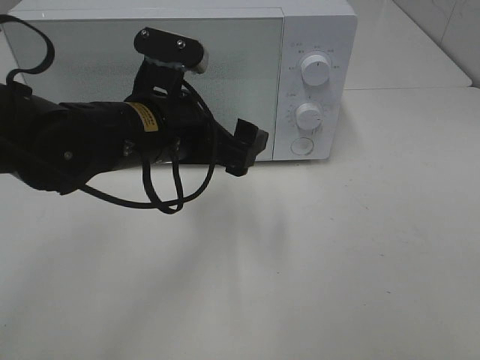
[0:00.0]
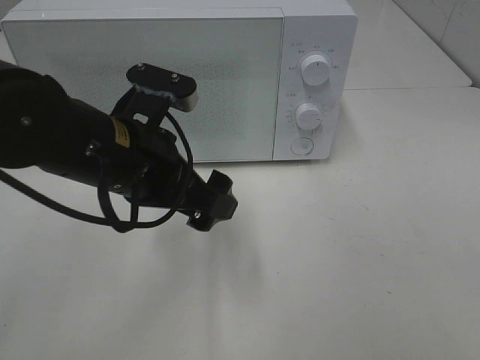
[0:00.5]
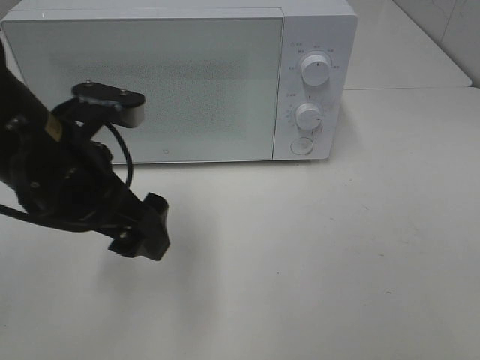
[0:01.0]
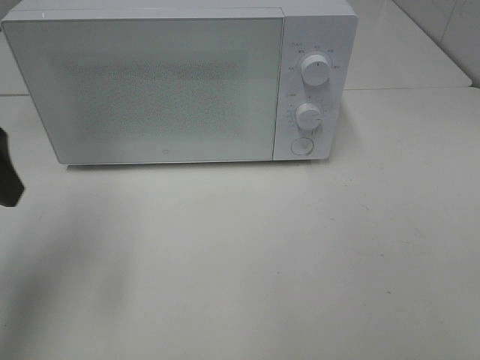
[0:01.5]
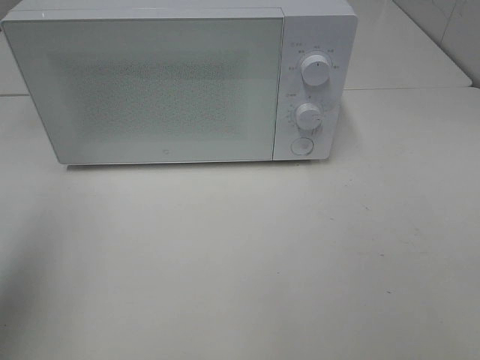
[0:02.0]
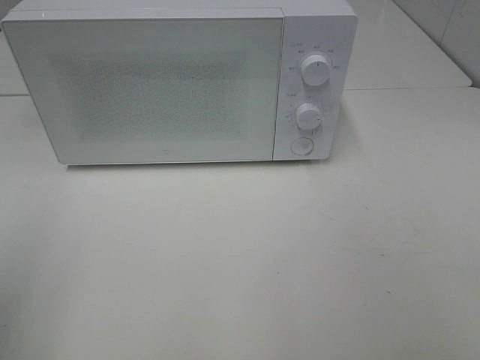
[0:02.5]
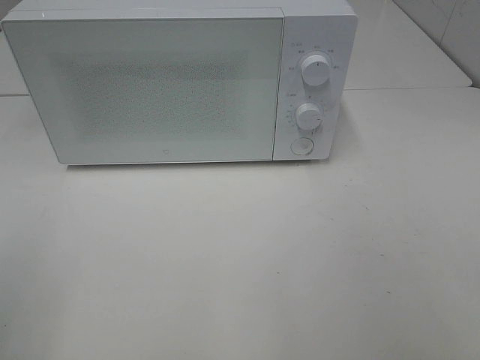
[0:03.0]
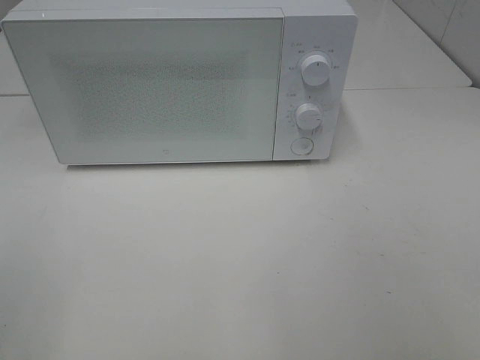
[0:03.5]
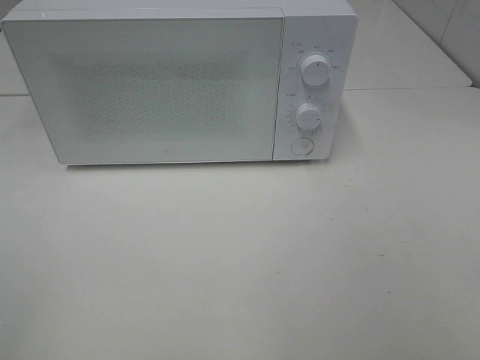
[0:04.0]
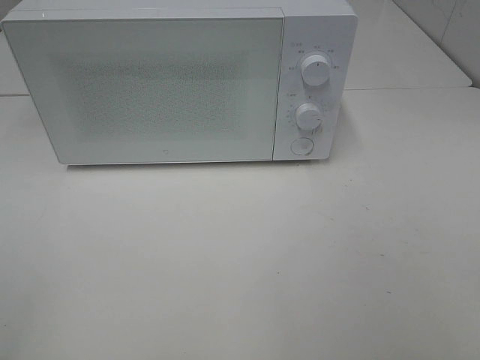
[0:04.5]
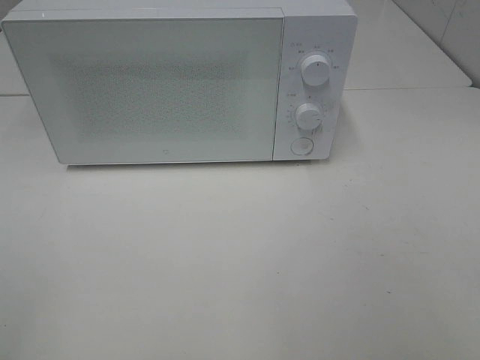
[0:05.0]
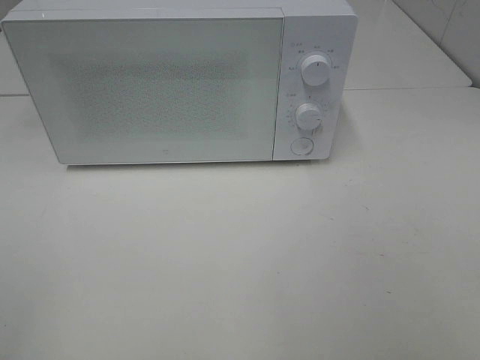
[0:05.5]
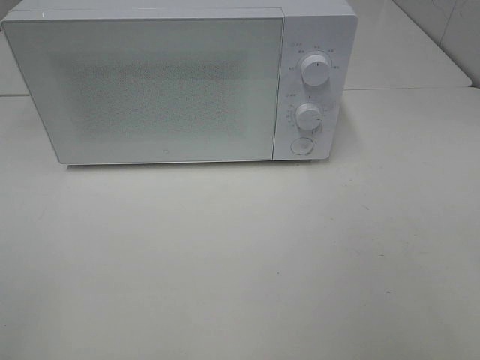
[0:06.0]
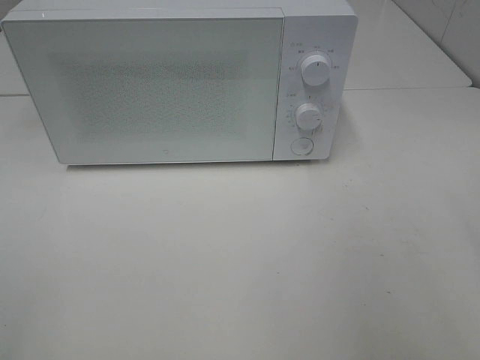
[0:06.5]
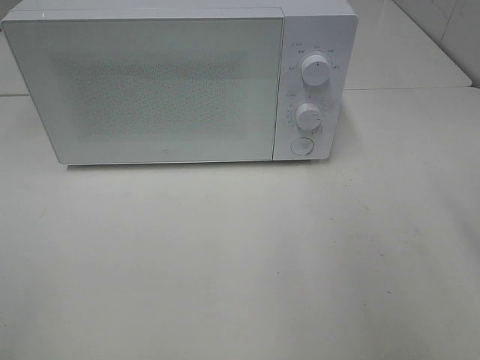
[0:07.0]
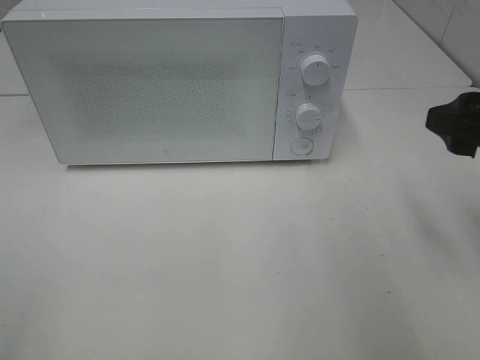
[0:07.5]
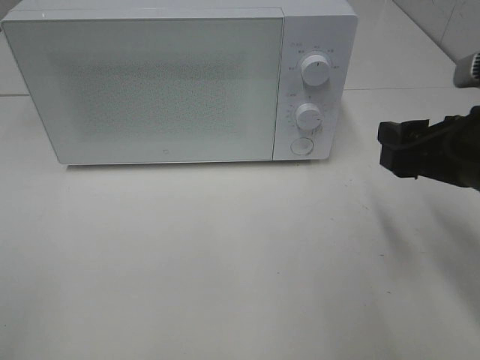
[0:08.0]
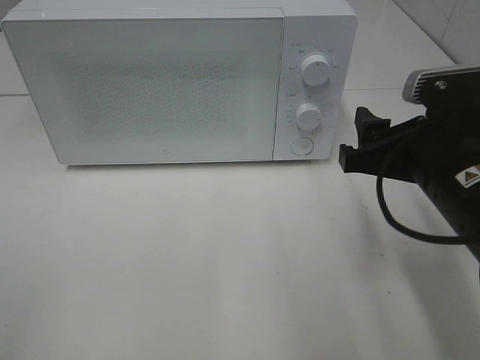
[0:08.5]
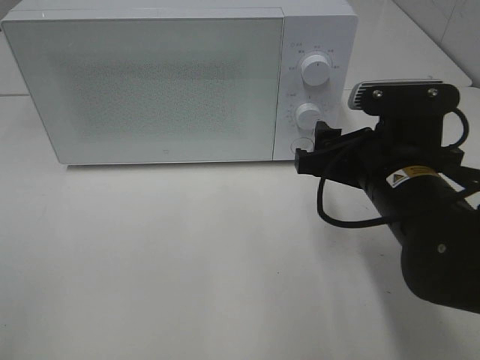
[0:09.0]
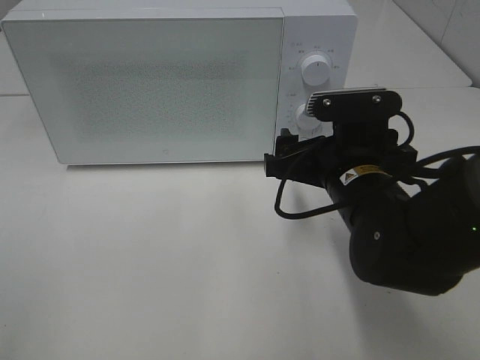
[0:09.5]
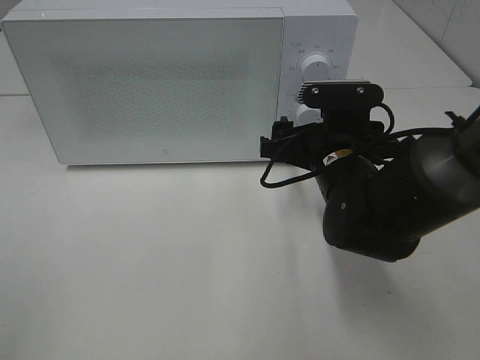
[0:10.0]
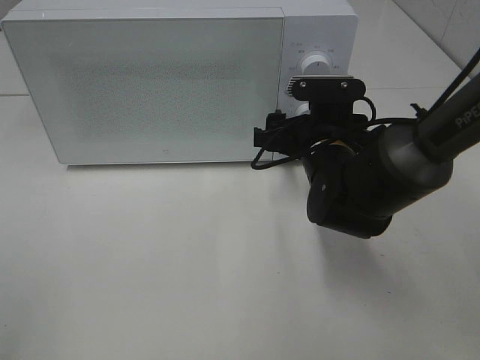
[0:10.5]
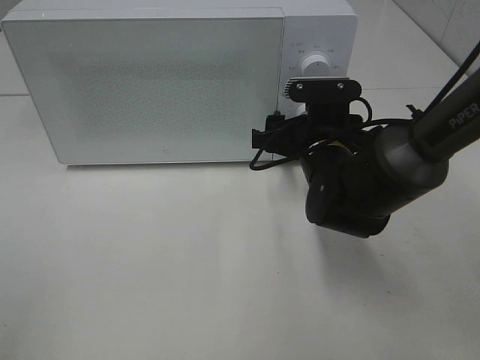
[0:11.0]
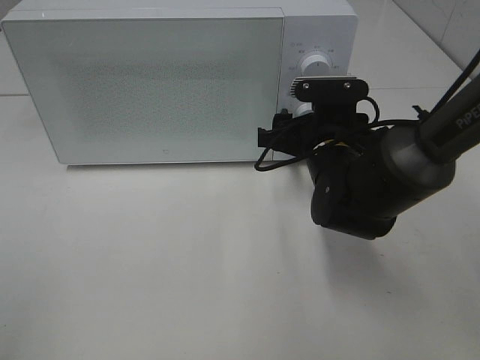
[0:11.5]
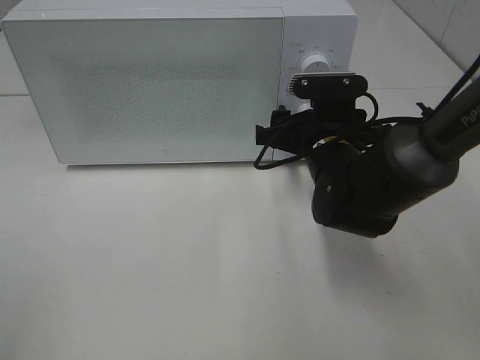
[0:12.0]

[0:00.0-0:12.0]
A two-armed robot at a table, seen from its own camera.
Task of the whole recording: Heat Sandwich.
0:00.0 to 0:02.0: The left gripper moves to the left, upward and backward, some 30 cm.
0:02.0 to 0:04.0: The left gripper shifts about 15 cm backward.
0:06.0 to 0:08.0: The right gripper is displaced forward and downward by about 20 cm.
0:08.0 to 0:10.0: The right gripper moves to the left, forward and downward, about 15 cm.
0:10.0 to 0:12.0: The grippers make only small movements.

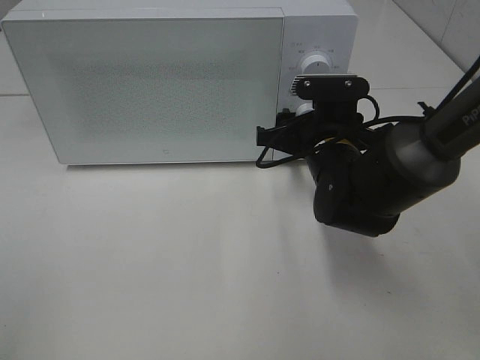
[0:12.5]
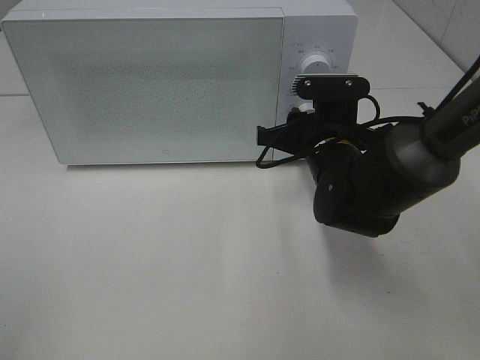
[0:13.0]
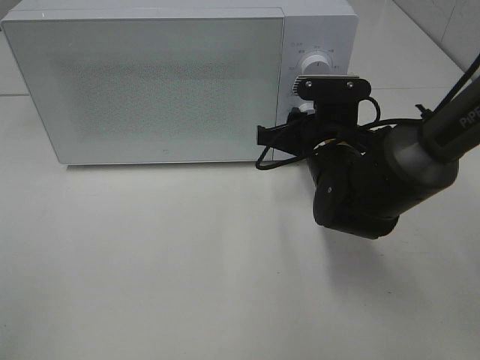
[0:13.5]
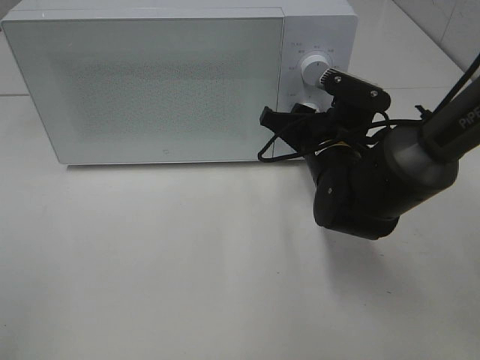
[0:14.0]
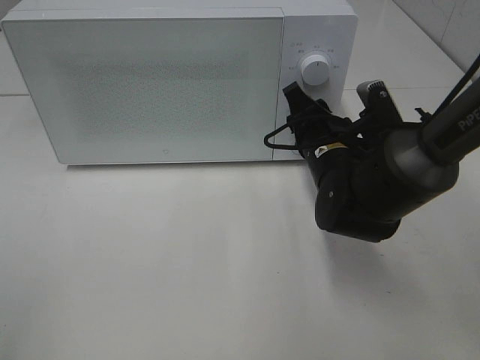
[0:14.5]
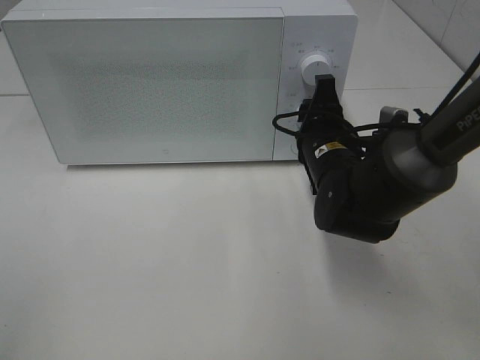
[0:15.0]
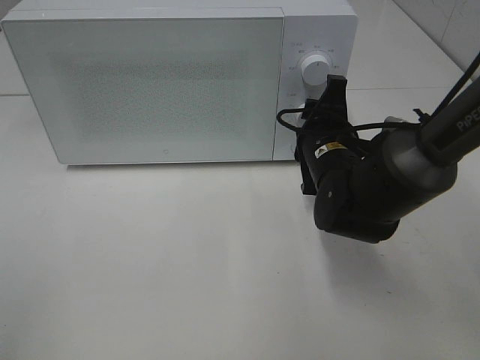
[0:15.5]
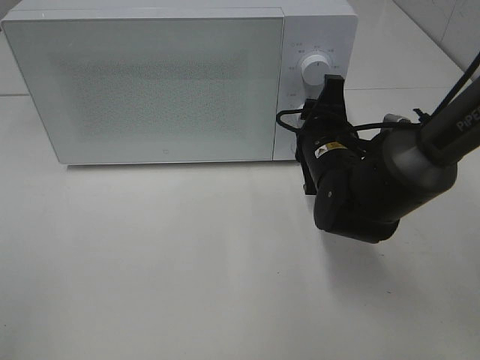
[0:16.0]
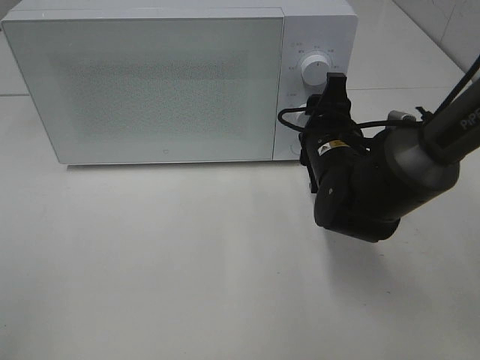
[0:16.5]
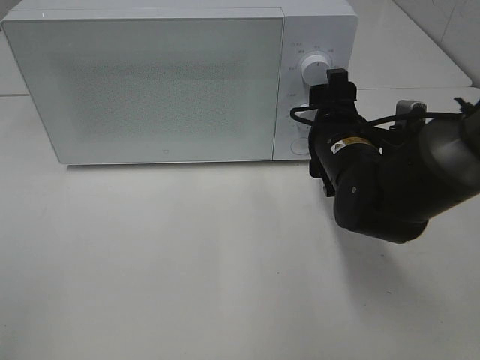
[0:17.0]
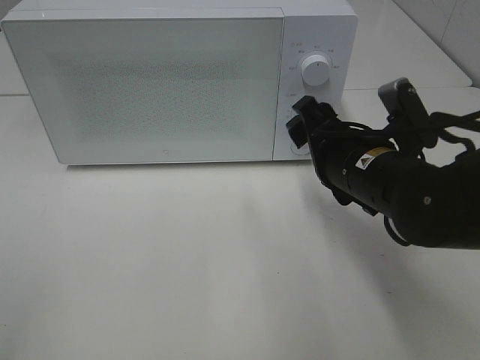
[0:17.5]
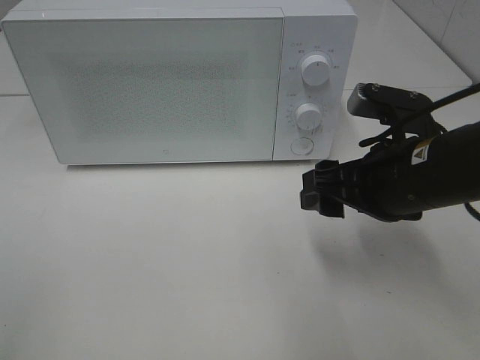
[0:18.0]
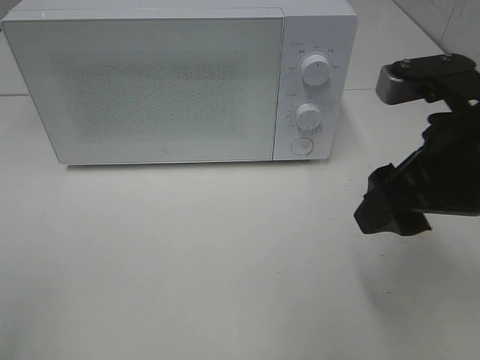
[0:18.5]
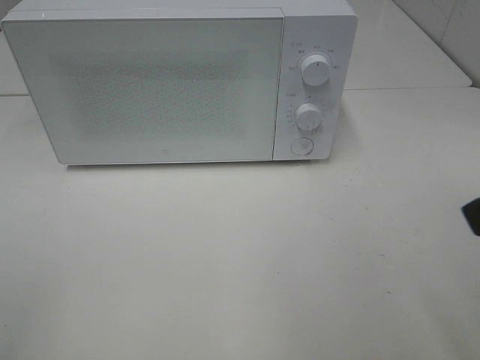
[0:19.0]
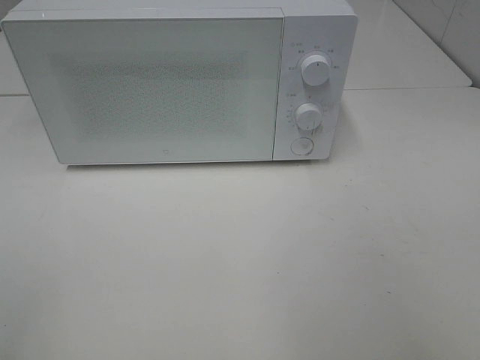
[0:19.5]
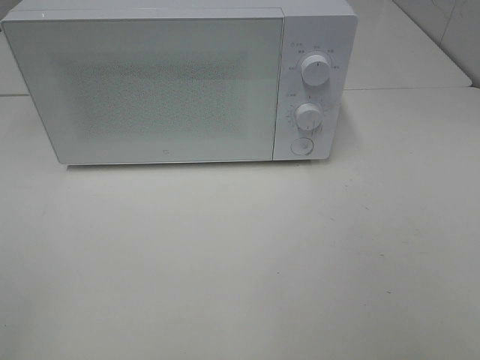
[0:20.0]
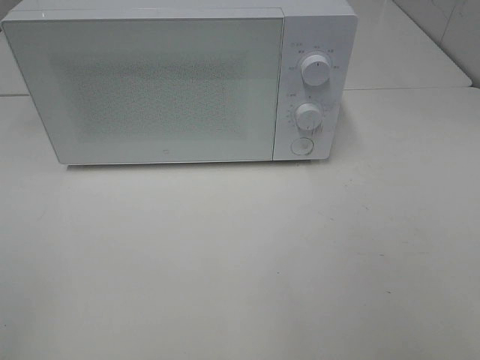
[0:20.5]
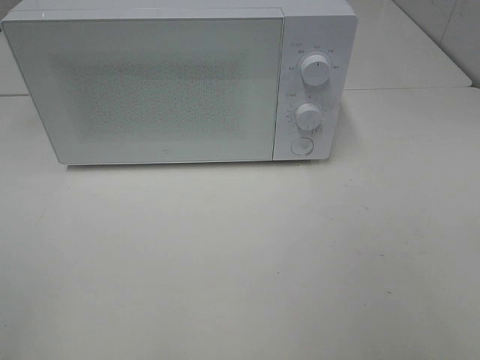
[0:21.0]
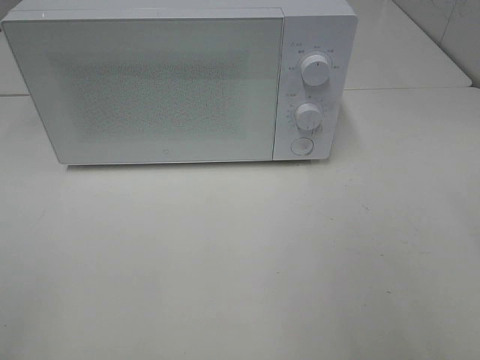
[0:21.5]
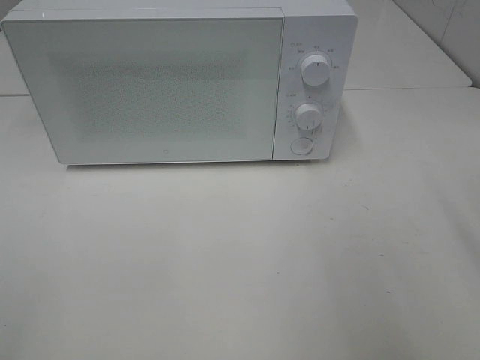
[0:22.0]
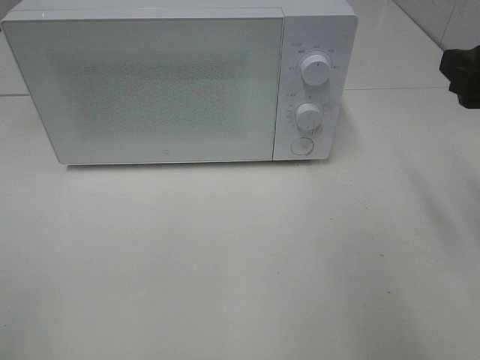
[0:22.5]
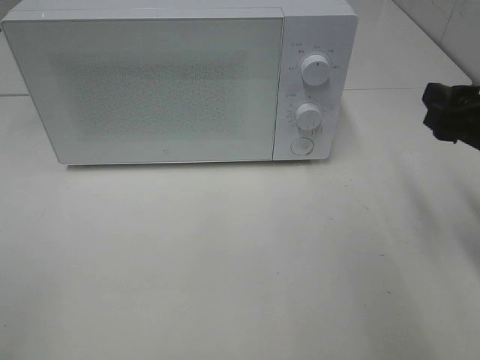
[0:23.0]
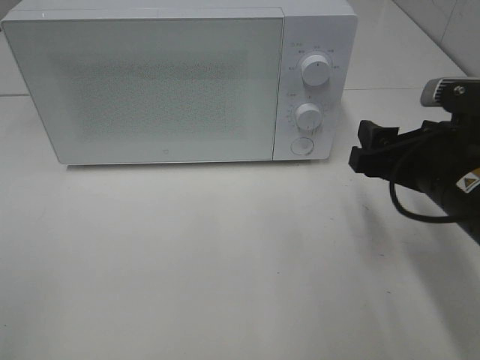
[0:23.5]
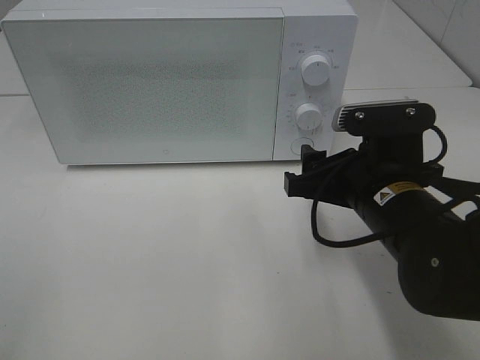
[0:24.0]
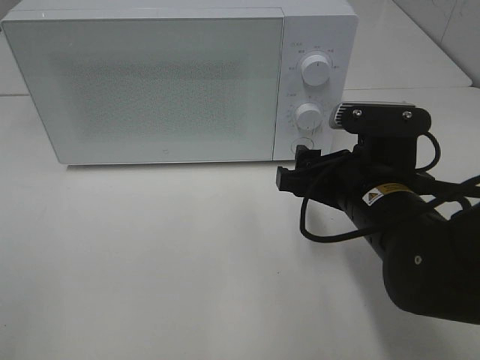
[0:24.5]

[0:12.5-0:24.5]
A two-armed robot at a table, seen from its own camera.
Task of the whole recording: Heat Sandwich.
Step, 0:12.5 to 0:17.0: Right hand: twist timer button.
0:16.5 to 0:18.5: The right gripper travels backward, upward and to the right by approximately 20 cm.
0:18.5 to 0:20.5: The right gripper shifts some 25 cm backward and to the right.
0:20.5 to 0:22.5: The right gripper shifts some 20 cm forward.
0:22.5 to 0:24.5: The right gripper heads to the left and downward, covering about 15 cm.

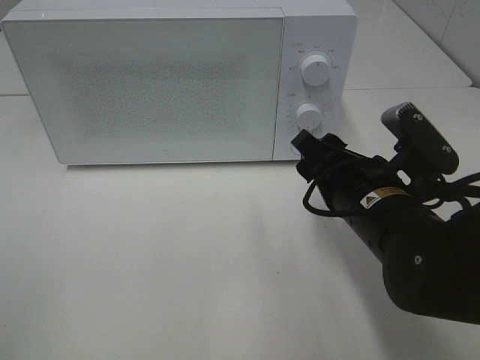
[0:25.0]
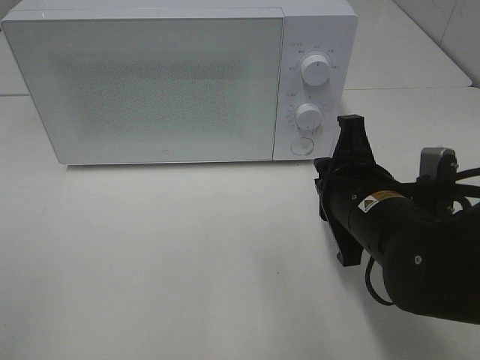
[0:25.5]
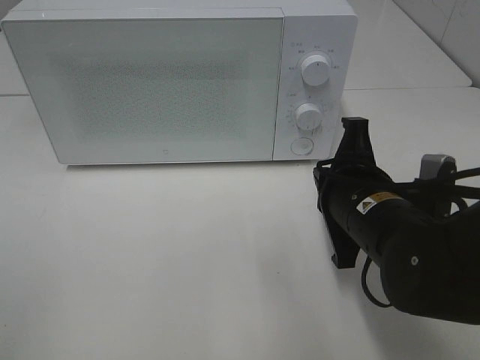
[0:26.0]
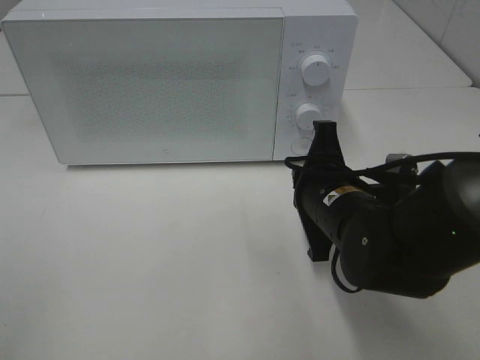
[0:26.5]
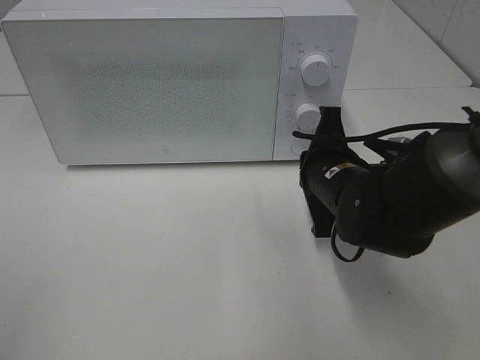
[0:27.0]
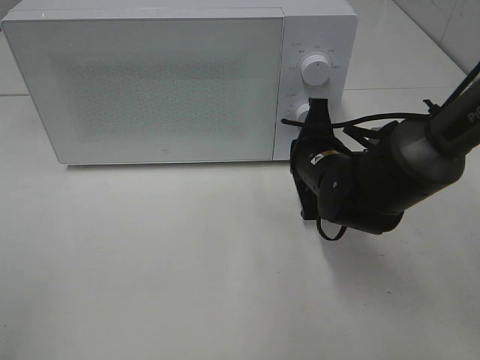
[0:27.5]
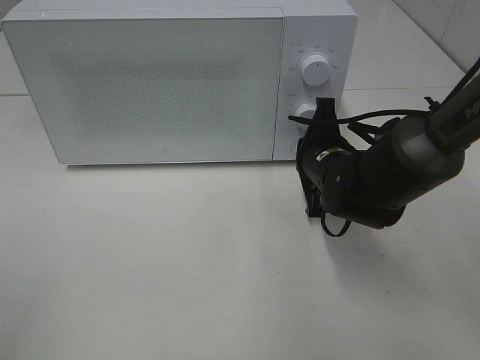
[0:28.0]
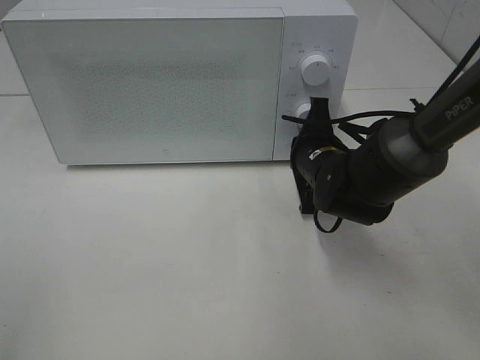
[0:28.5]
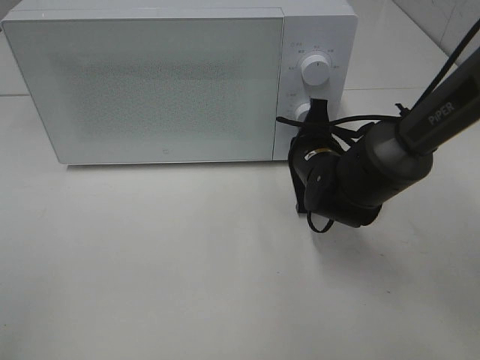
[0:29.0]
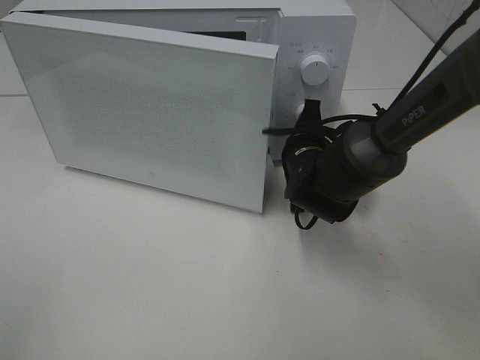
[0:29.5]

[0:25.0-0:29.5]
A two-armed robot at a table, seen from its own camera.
Task of the whole recording: Heat Sandwich.
0:25.0 to 0:27.0: The right gripper travels forward by some 5 cm, and closes its fingers.
0:27.0 to 0:29.5: The right gripper travels forward by some 10 cm.
